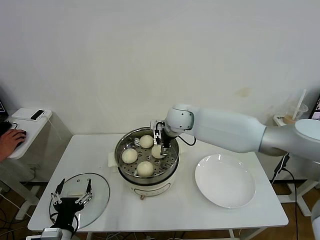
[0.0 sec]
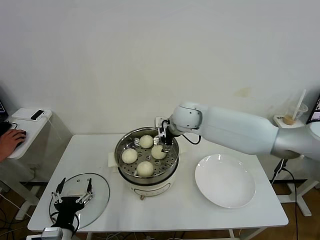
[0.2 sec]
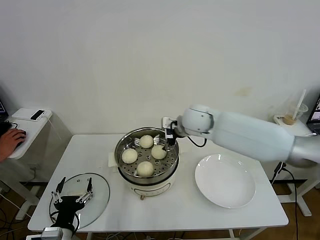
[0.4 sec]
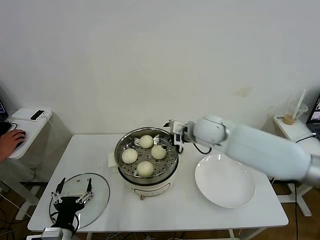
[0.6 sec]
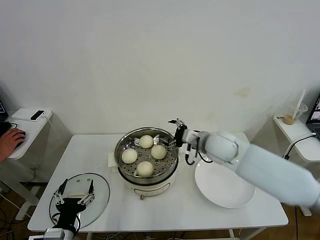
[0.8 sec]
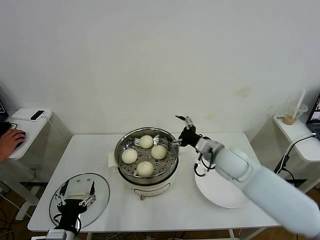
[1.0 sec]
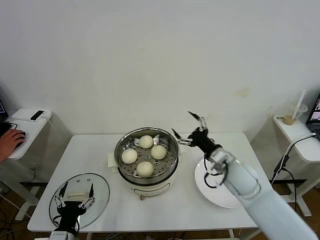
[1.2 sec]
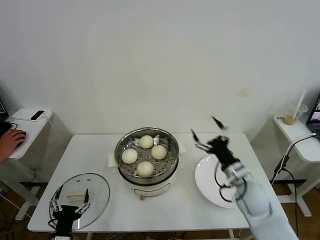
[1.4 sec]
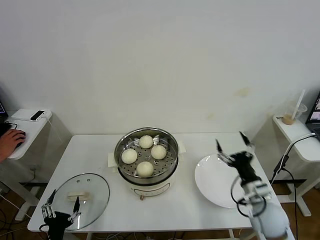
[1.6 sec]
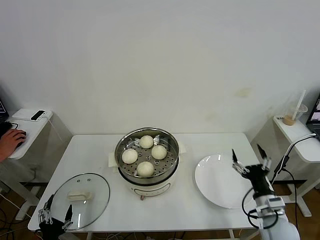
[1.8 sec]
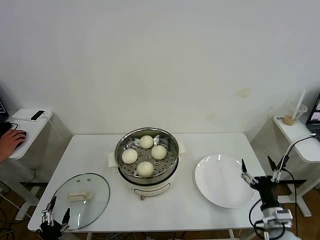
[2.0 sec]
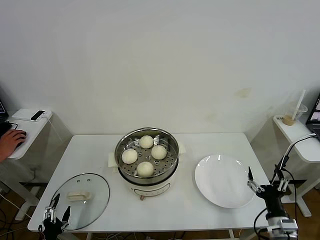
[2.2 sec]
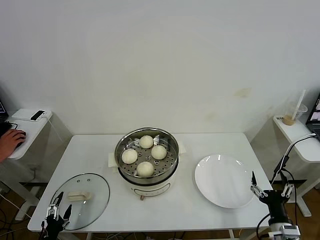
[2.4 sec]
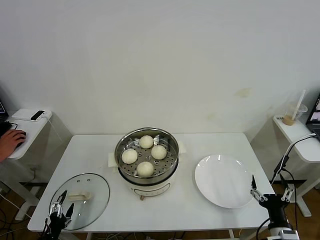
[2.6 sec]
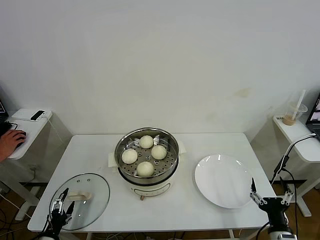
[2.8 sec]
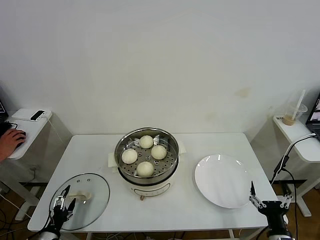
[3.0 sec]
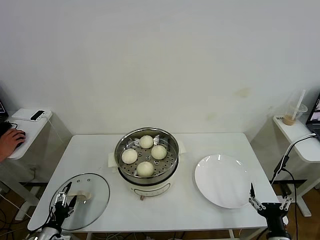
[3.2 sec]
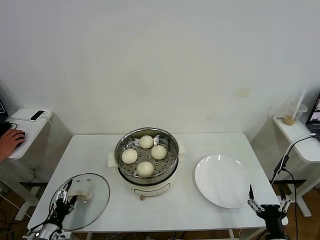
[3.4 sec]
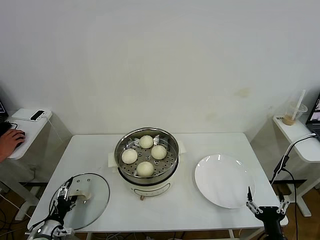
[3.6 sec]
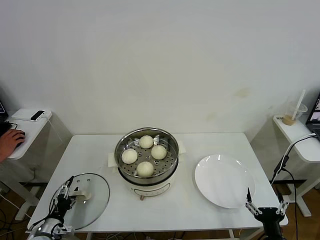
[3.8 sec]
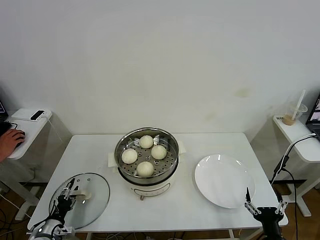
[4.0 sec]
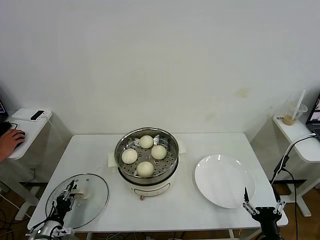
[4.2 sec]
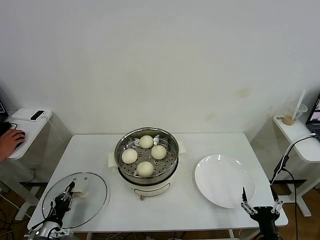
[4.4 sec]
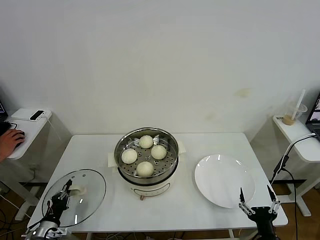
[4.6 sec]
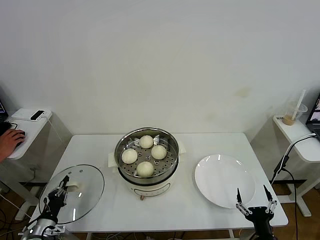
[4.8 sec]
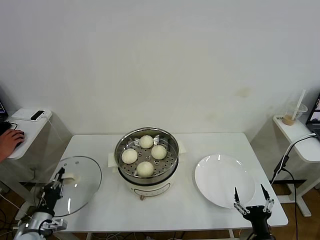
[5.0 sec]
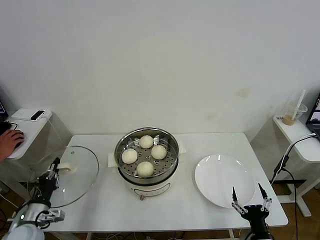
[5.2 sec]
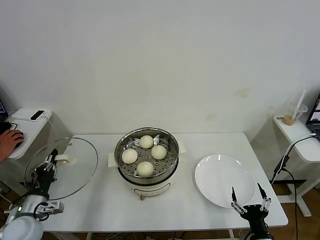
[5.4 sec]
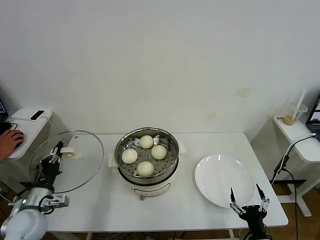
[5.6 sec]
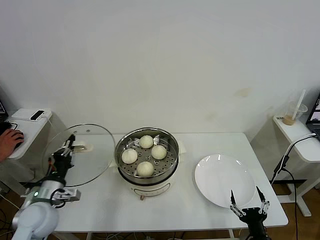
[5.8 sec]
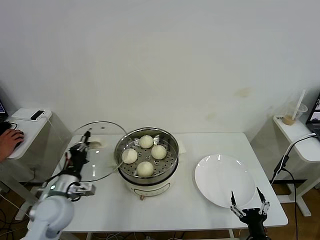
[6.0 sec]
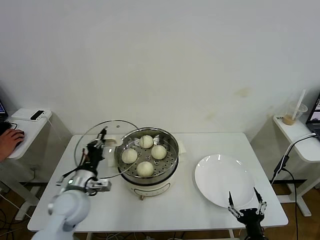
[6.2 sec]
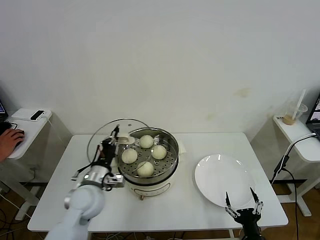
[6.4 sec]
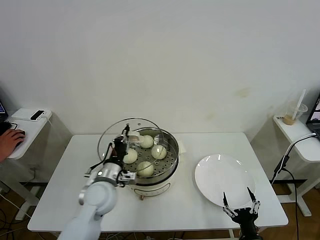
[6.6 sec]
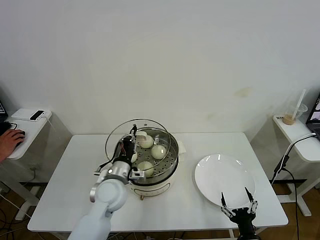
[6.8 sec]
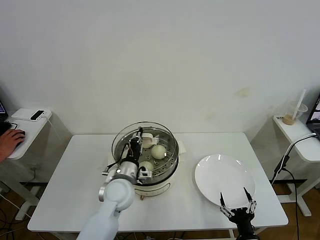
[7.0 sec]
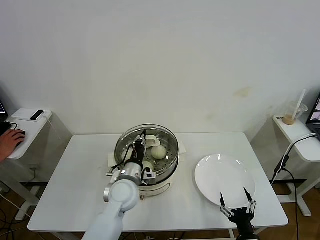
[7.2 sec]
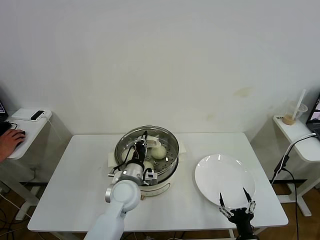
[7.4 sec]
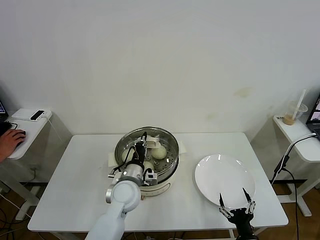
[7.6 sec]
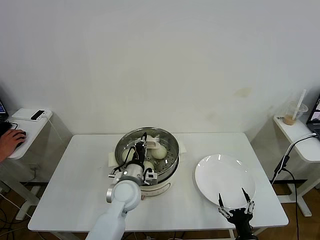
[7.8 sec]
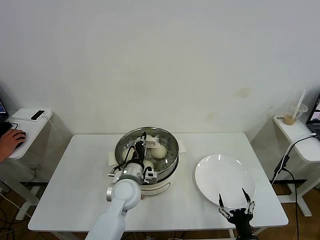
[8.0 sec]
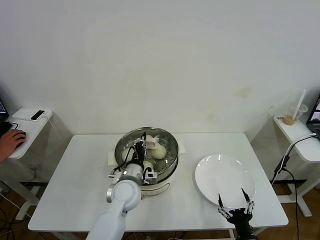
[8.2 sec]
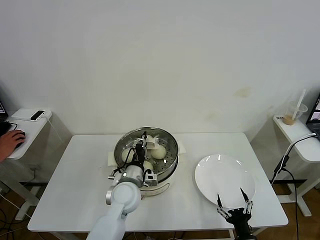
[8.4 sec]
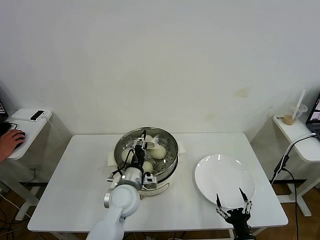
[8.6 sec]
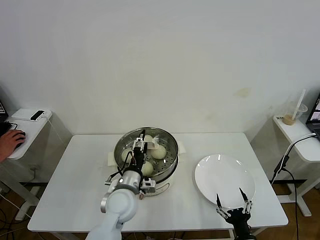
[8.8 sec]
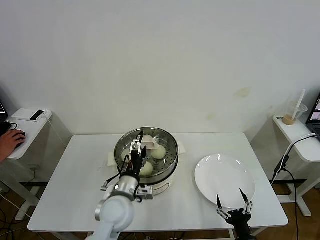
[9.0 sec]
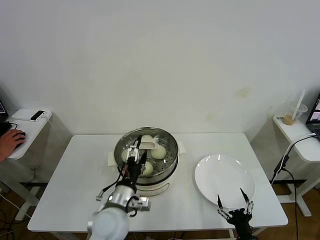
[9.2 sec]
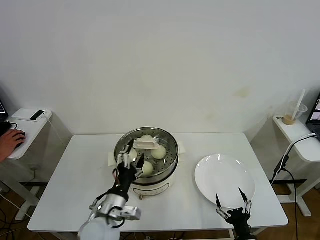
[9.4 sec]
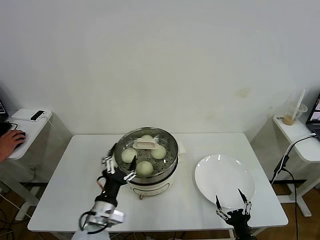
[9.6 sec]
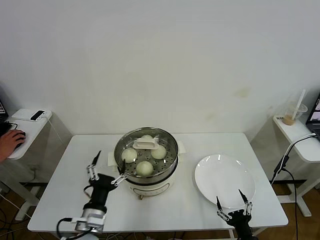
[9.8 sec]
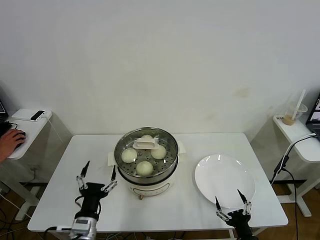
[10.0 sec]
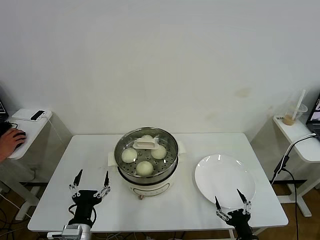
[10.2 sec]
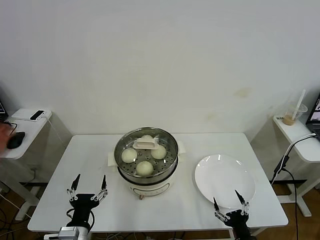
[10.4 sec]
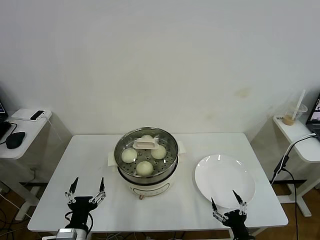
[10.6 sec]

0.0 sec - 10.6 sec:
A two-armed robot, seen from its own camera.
Task of the whole recording: take steamed baozi put them in steamer then cover it.
Step, 0.2 sec - 4.6 sec: Grasp the pot lid with left gripper.
Step, 4.8 sec - 9.2 sec: Place the pot lid on the steamer with left gripper.
0.0 sec - 1.6 sec: The right gripper goes some 40 cm backward, to the right and downward. The left gripper goes roughly 5 cm downward.
1.6 sec - 3.0 sec: The right gripper moves backward and downward, some 15 cm, while the left gripper heads to the left and downward, covering roughly 10 cm.
3.0 sec - 4.6 sec: The left gripper closes its fingers.
4.6 sec - 6.0 sec: The left gripper moves upward, to the right and forward, about 20 cm.
6.0 sec - 7.6 sec: The left gripper shifts about 20 cm to the right.
7.6 sec - 9.0 sec: The left gripper shifts about 5 cm backward, and opens.
9.0 sec - 10.6 sec: The left gripper shifts some 20 cm backward and to the left.
